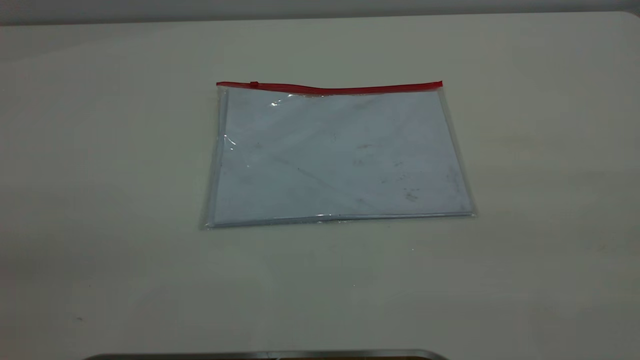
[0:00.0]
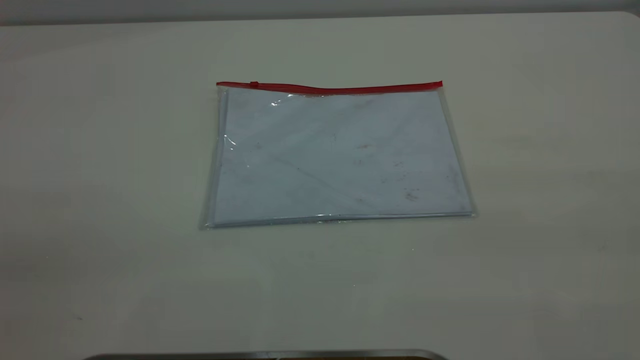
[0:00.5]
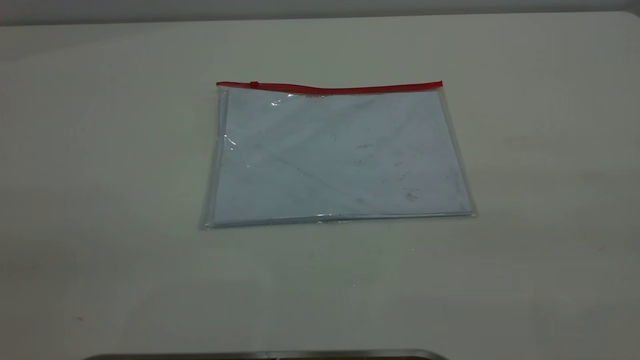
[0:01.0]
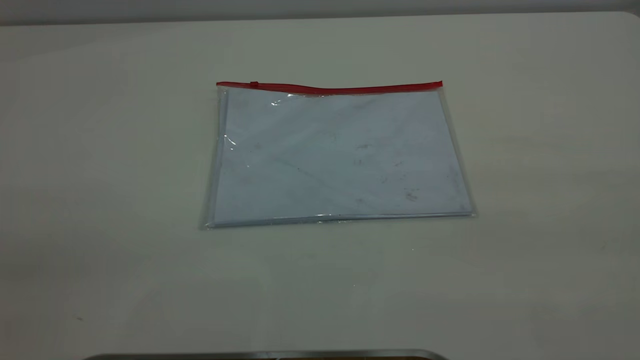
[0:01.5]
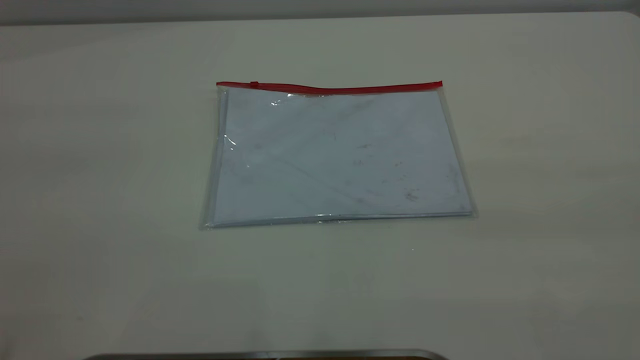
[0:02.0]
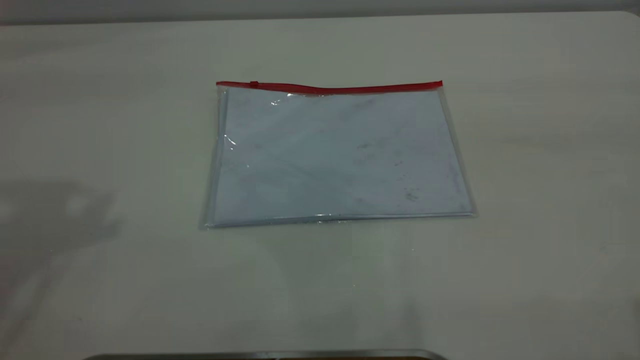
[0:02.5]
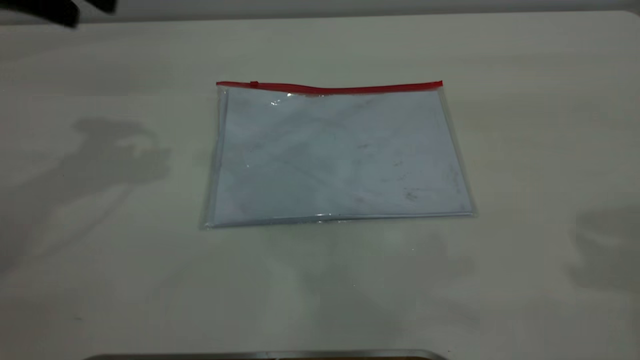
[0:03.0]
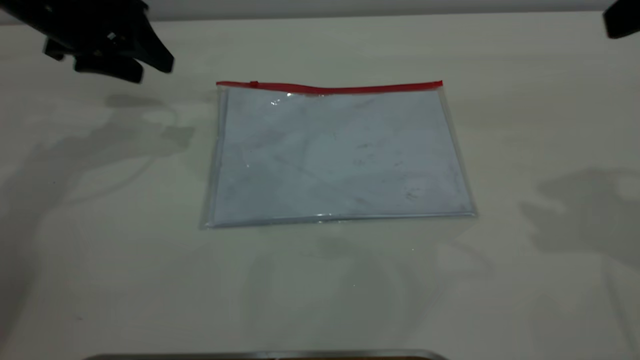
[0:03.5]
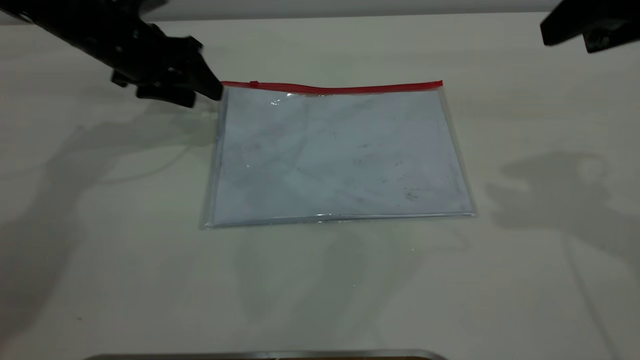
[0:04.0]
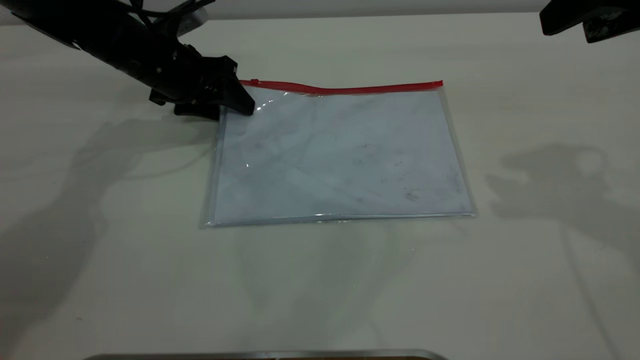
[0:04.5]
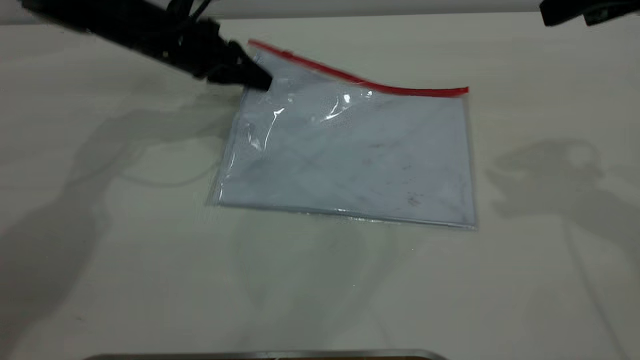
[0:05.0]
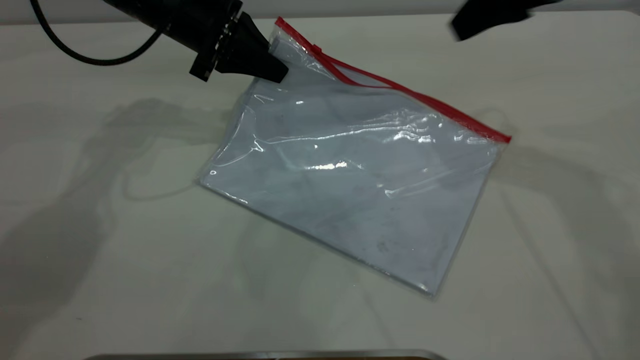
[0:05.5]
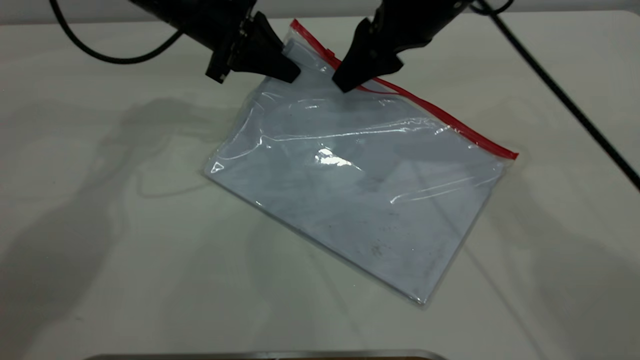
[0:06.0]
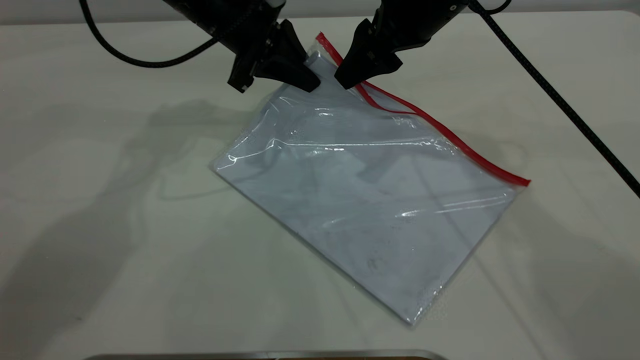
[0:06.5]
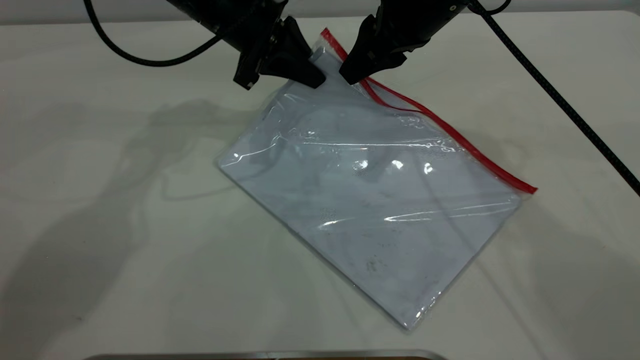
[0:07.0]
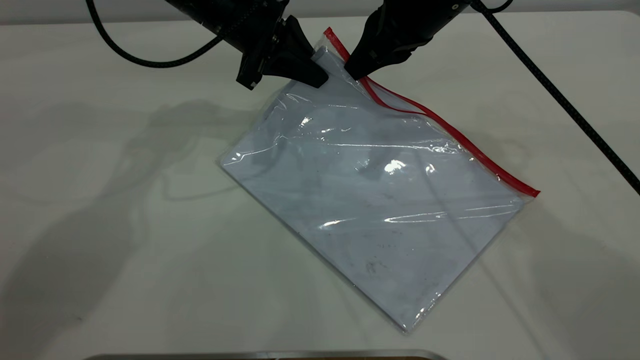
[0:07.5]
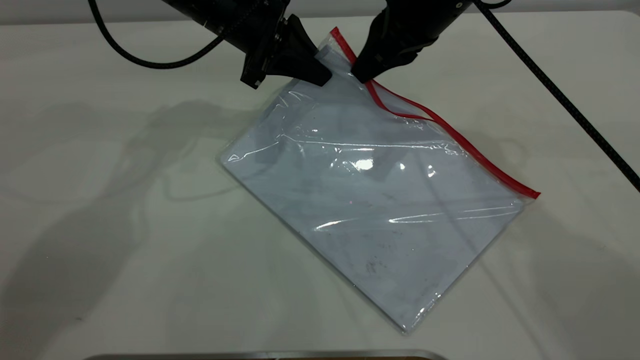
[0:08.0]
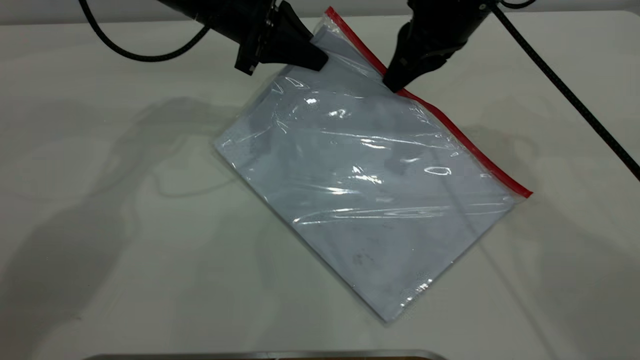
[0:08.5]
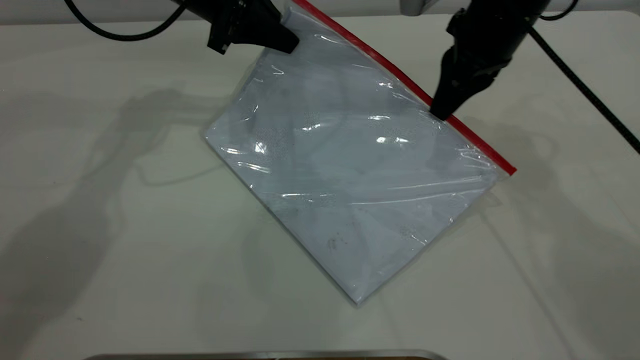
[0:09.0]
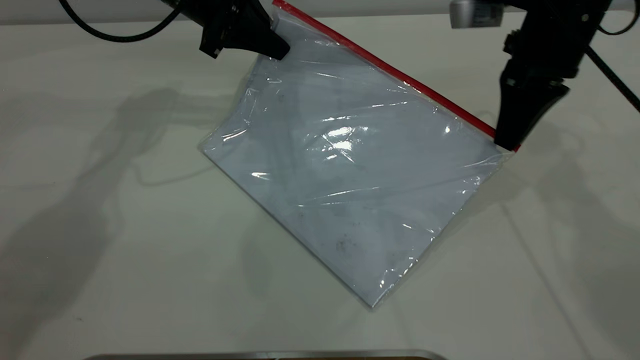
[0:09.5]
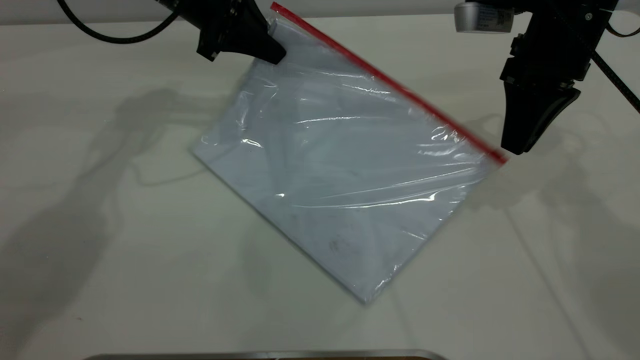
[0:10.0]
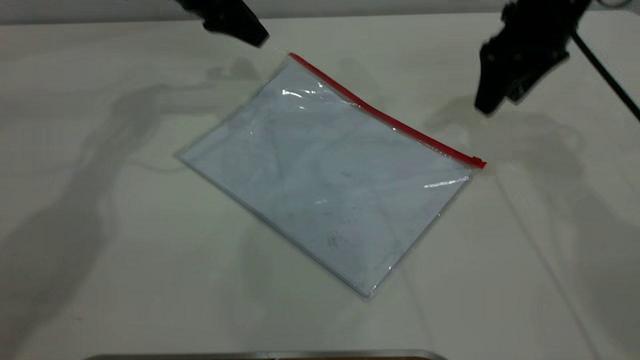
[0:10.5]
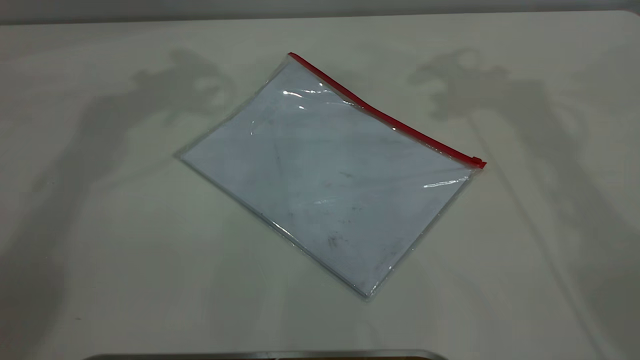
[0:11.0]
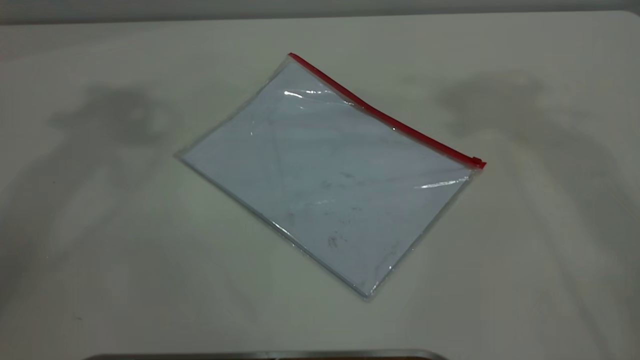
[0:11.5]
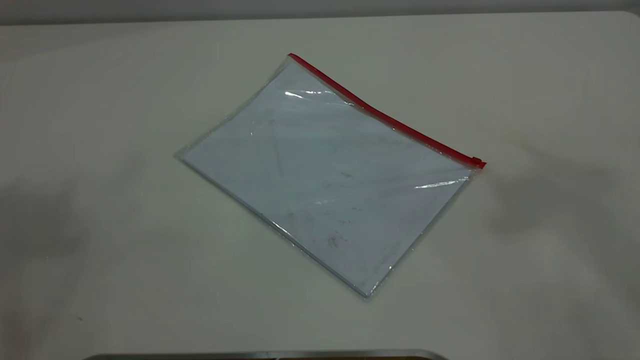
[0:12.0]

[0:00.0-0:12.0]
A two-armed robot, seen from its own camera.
Step, 0:00.0 to 0:05.0: Pick up the transparent plastic bag with the left gripper.
Step, 0:05.5 to 0:10.0: Pulling up the zipper on the transparent plastic bag with the right gripper to close it.
0:02.0 to 0:04.0: The right gripper travels forward by about 30 cm. Meanwhile the left gripper goes approximately 50 cm forward and downward.
0:04.0 to 0:06.0: The right gripper moves to the left, forward and downward, approximately 20 cm, while the left gripper heads to the right, covering roughly 10 cm, and closes its fingers.
0:06.0 to 0:08.0: The right gripper closes its fingers.
0:08.0 to 0:10.0: The right gripper shifts roughly 10 cm to the right. Meanwhile the left gripper goes approximately 5 cm to the left.
0:10.0 to 0:12.0: The left gripper moves upward and backward, about 50 cm, and opens up; the right gripper moves upward, approximately 50 cm, and opens its fingers.
